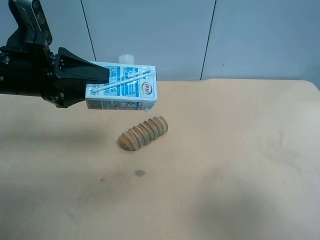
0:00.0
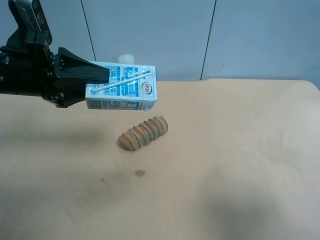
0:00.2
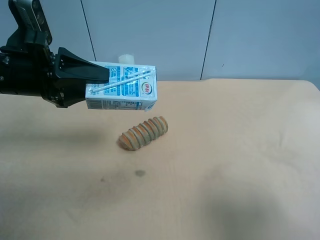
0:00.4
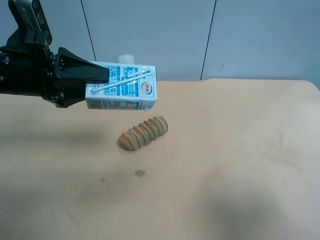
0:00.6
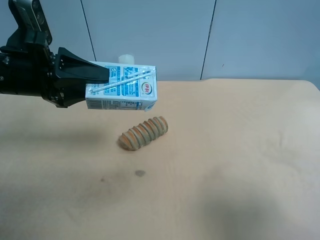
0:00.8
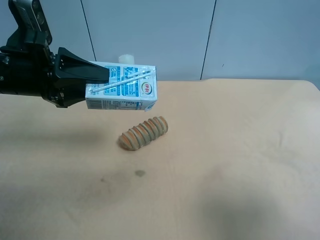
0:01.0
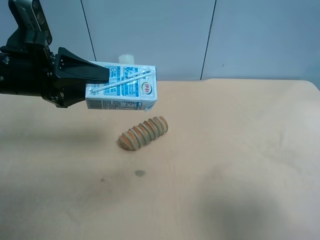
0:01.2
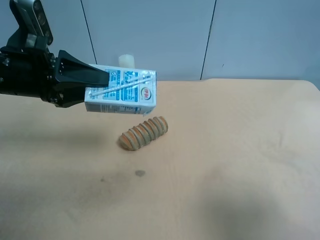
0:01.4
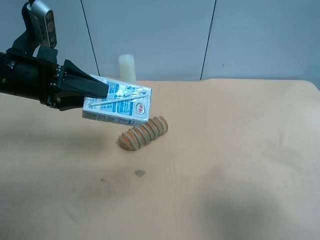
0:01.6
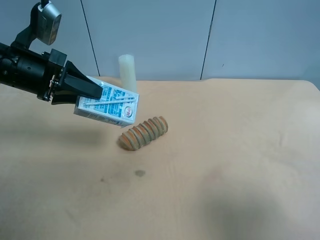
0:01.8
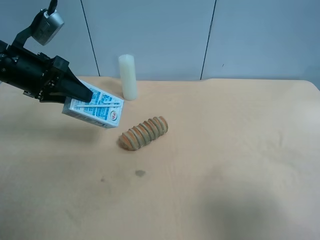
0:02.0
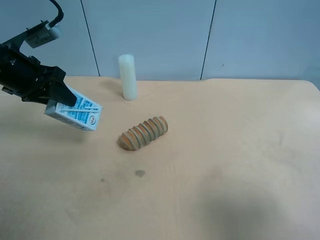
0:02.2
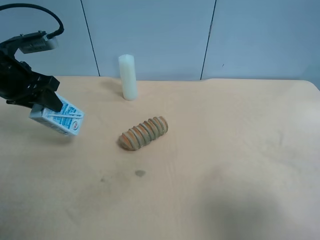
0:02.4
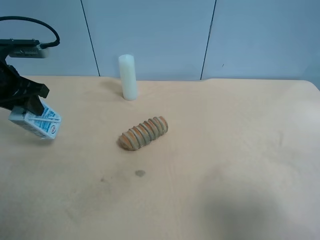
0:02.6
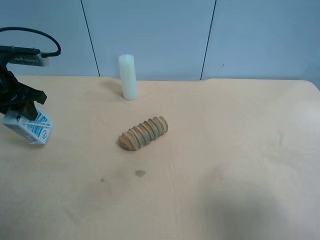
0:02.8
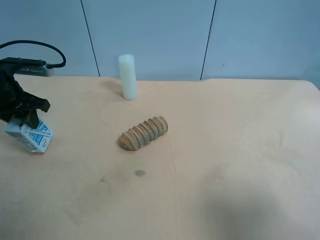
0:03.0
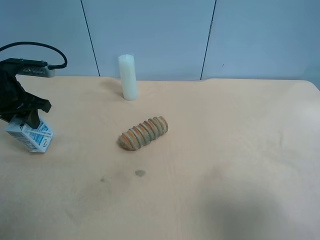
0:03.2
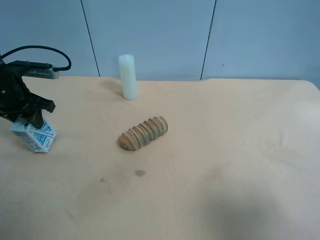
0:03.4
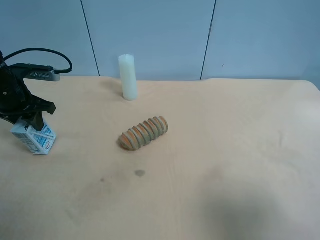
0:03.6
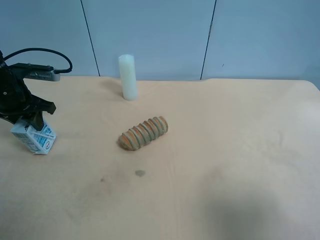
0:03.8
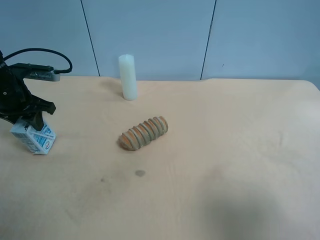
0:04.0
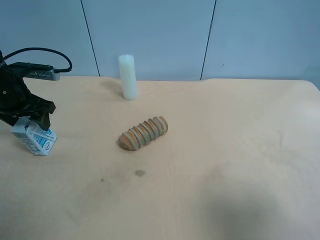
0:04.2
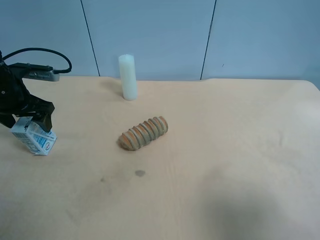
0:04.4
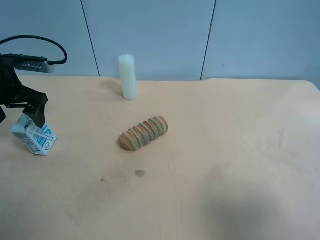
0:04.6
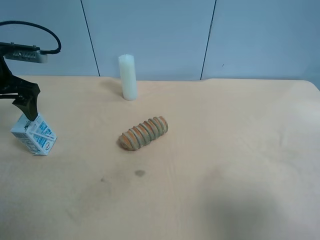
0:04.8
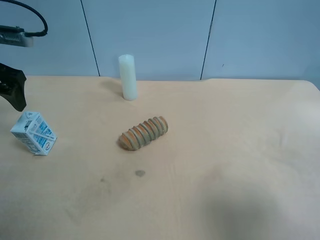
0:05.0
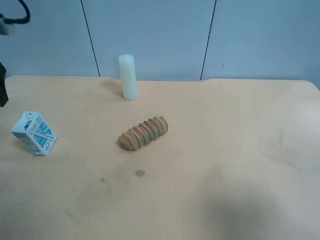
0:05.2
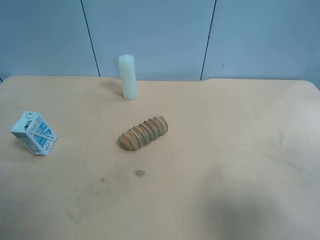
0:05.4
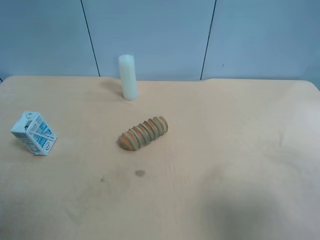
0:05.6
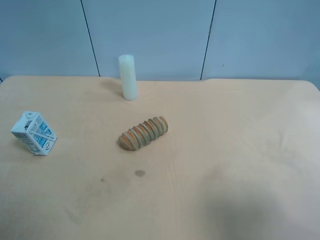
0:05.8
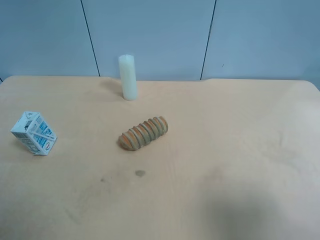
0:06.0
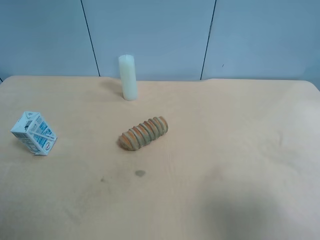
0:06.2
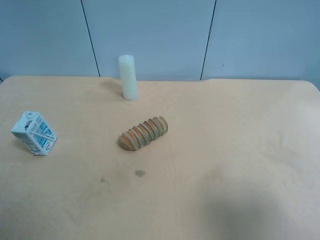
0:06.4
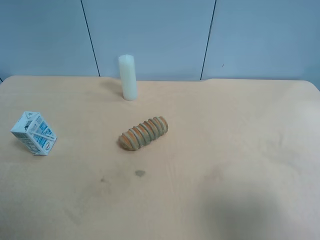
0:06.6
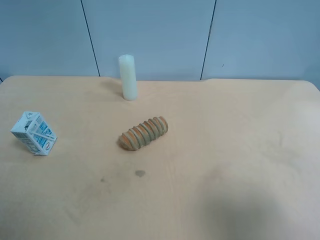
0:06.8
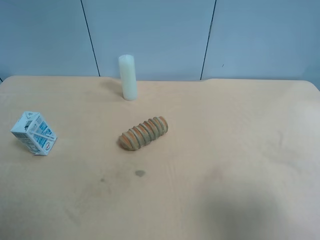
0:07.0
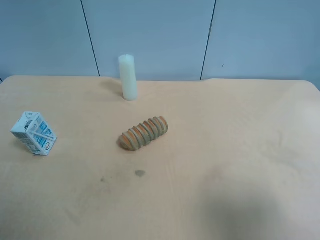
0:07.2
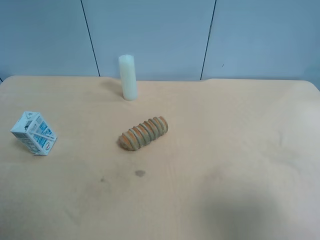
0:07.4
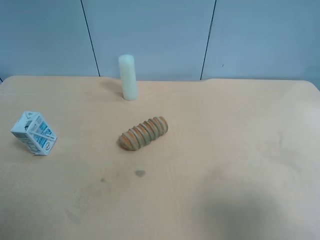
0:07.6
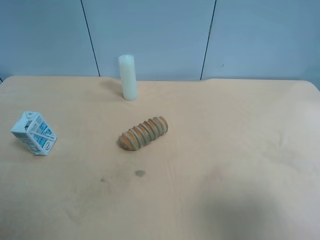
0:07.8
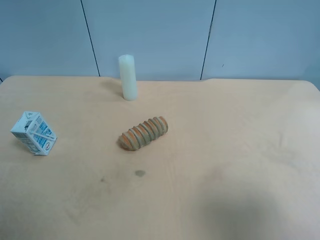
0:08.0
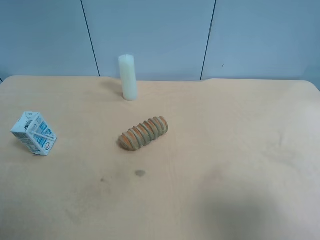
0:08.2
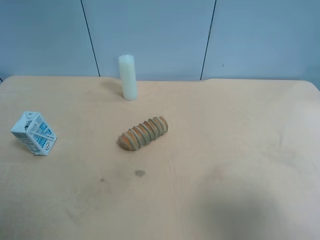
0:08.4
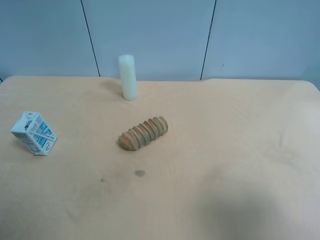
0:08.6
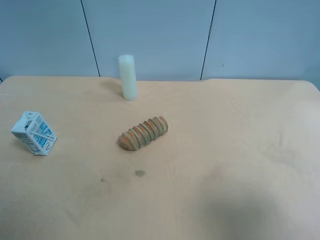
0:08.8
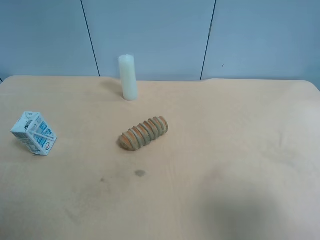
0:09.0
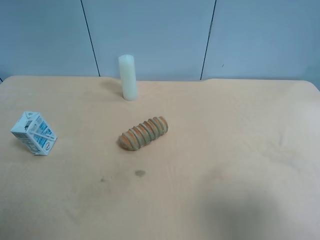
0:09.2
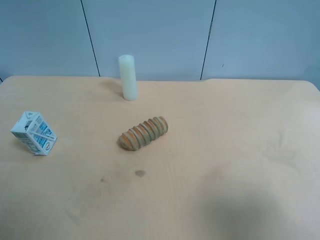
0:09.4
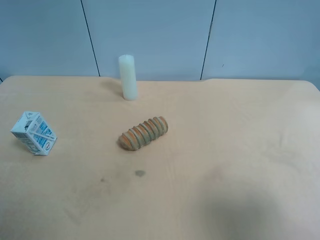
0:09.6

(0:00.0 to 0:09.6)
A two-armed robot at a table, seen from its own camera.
Task of the whole recording: use the right gripper to pick up the item and transfer it from the right gripper to the left gripper.
0:00.0 - 0:01.6: The grippers move only a little.
0:01.6 - 0:03.2: The left gripper heads to the left and forward, covering approximately 10 cm.
0:03.2 - 0:04.8: The left gripper shifts some 5 cm upward, and opens its fingers.
0:04.8 - 0:06.4: The left gripper goes roughly 30 cm backward.
0:08.0 - 0:09.6: Both grippers stay about where they are.
